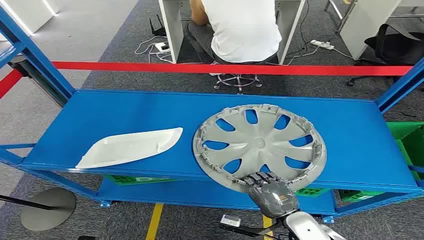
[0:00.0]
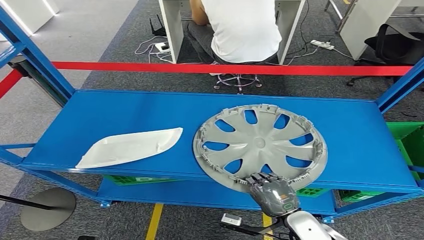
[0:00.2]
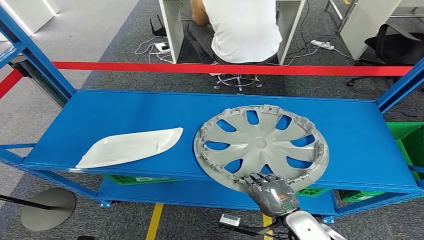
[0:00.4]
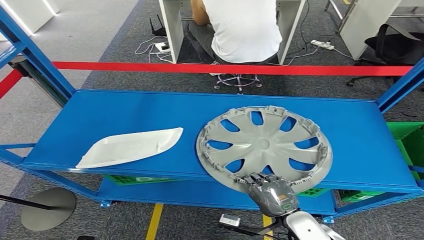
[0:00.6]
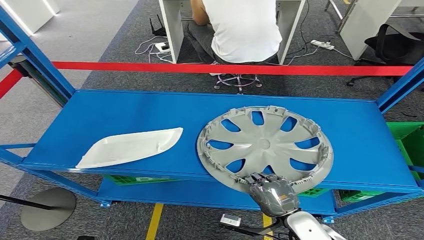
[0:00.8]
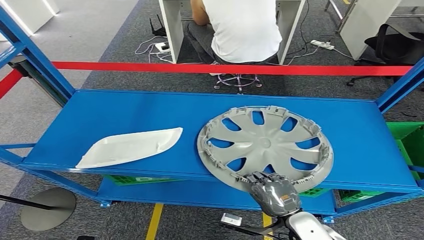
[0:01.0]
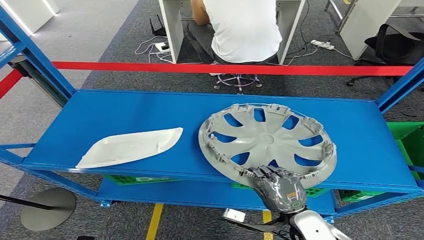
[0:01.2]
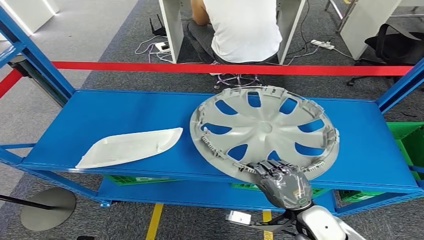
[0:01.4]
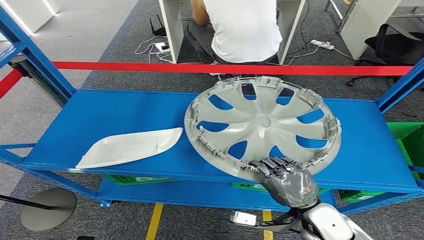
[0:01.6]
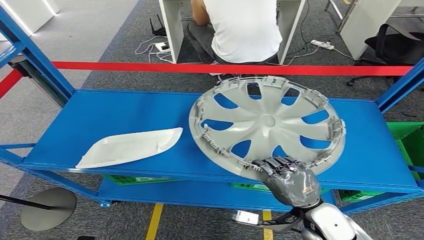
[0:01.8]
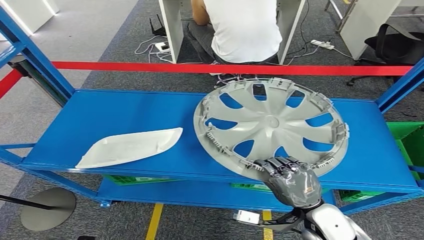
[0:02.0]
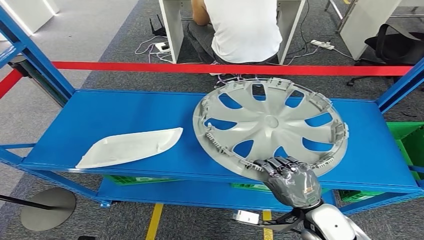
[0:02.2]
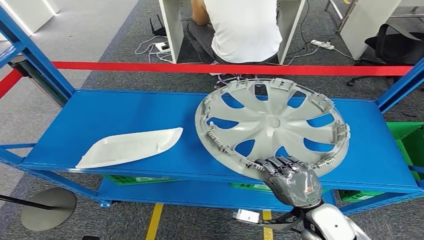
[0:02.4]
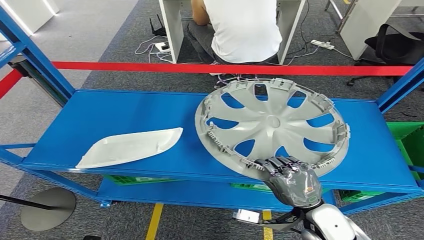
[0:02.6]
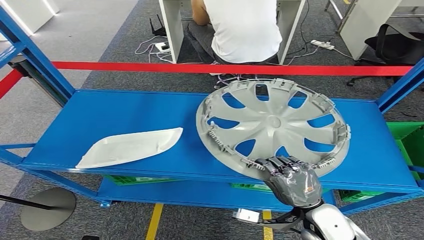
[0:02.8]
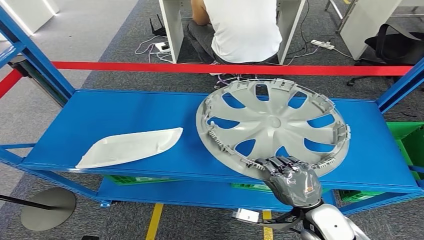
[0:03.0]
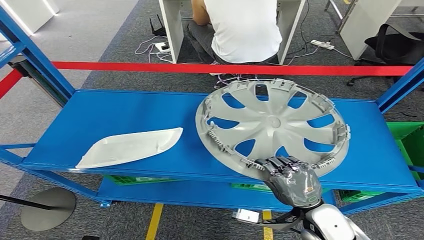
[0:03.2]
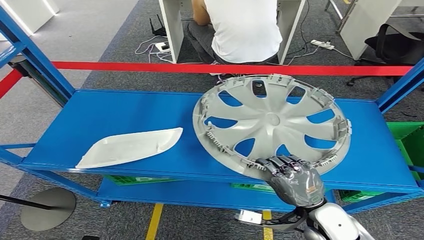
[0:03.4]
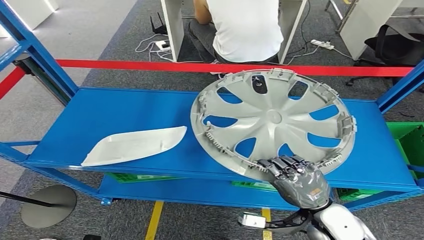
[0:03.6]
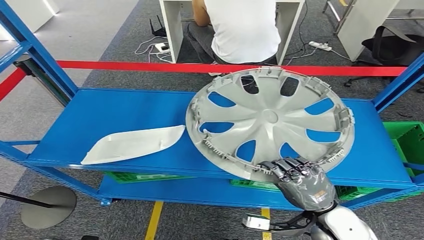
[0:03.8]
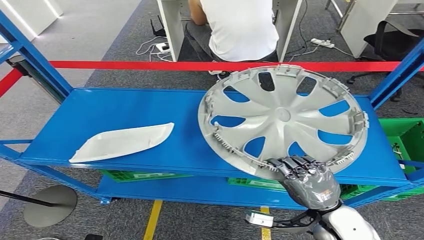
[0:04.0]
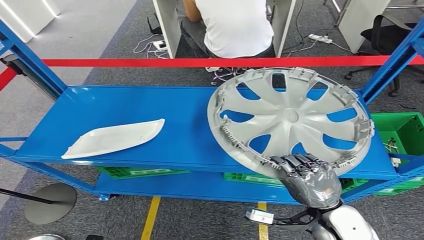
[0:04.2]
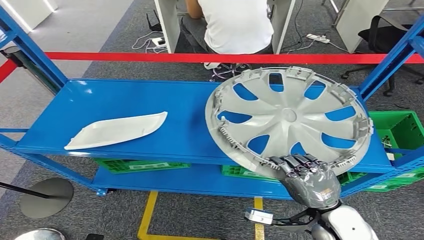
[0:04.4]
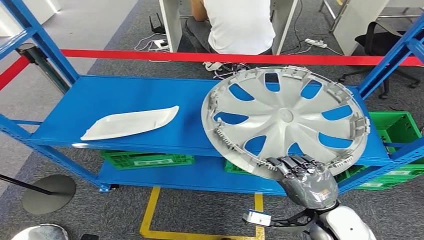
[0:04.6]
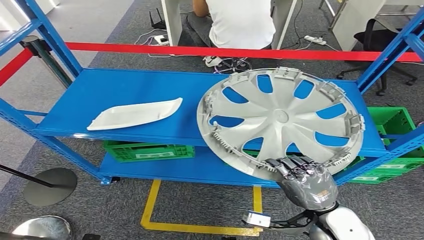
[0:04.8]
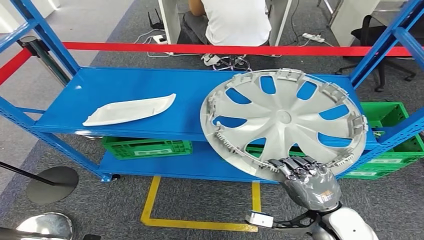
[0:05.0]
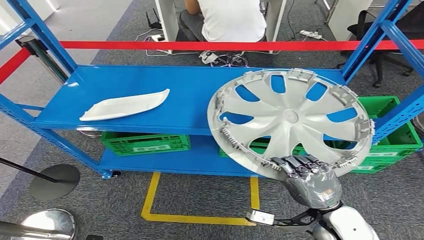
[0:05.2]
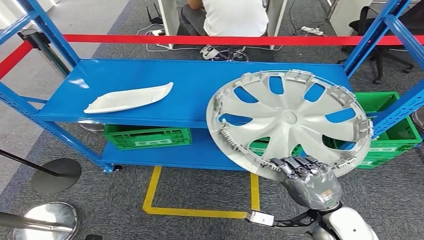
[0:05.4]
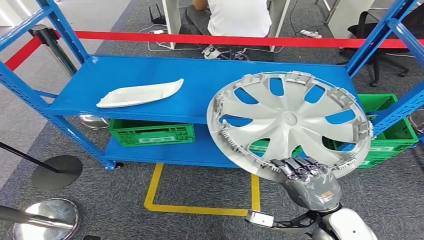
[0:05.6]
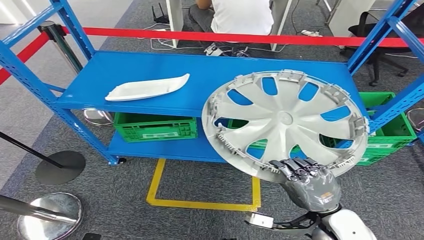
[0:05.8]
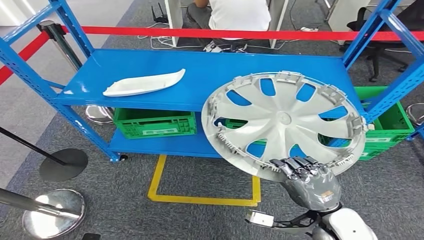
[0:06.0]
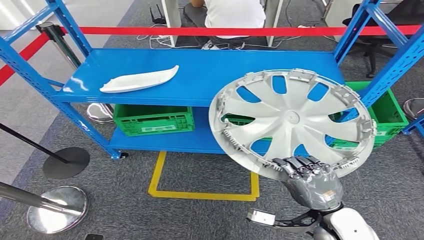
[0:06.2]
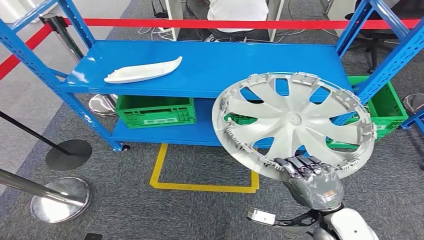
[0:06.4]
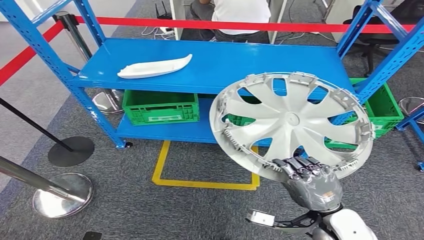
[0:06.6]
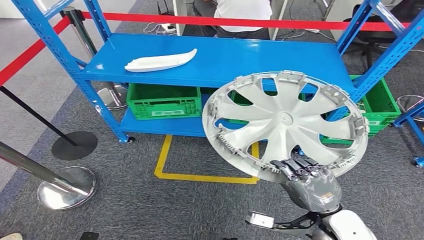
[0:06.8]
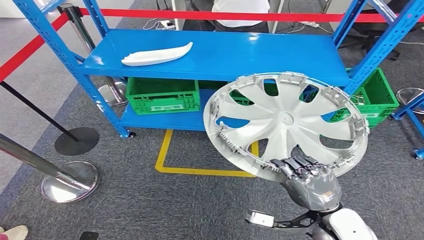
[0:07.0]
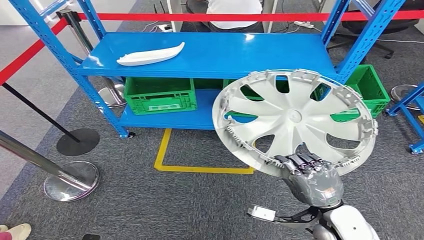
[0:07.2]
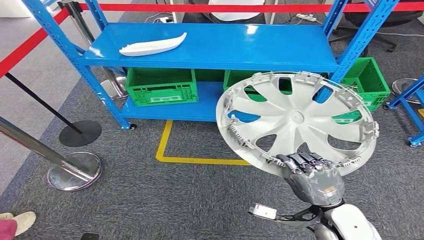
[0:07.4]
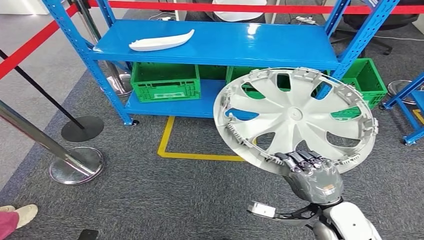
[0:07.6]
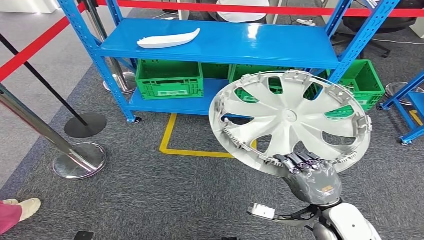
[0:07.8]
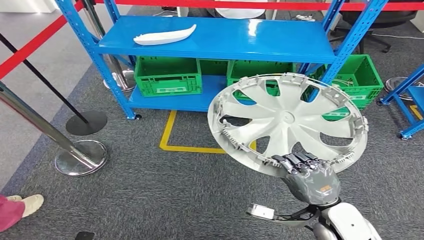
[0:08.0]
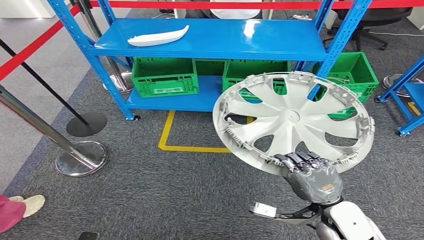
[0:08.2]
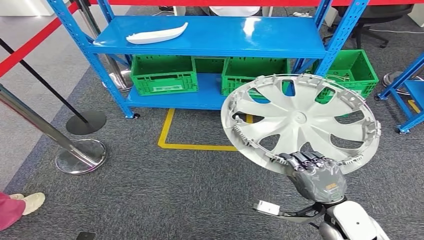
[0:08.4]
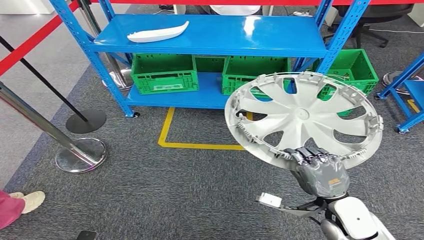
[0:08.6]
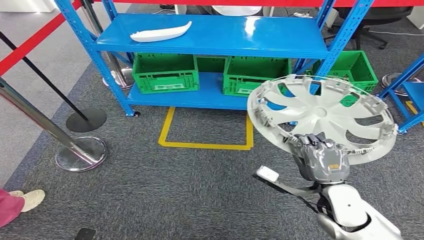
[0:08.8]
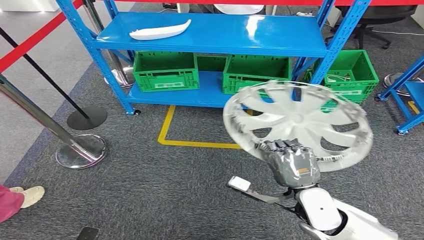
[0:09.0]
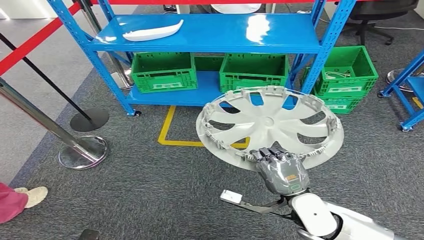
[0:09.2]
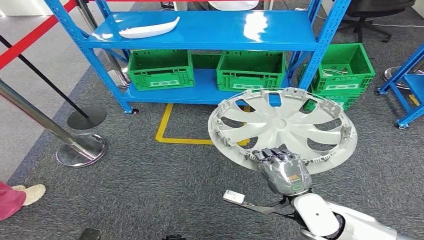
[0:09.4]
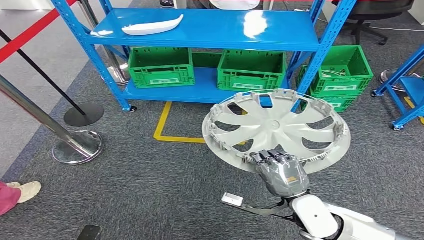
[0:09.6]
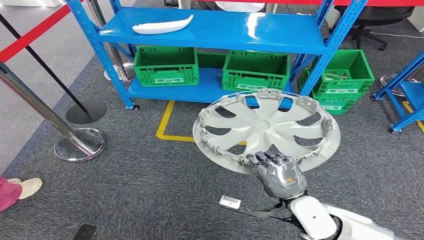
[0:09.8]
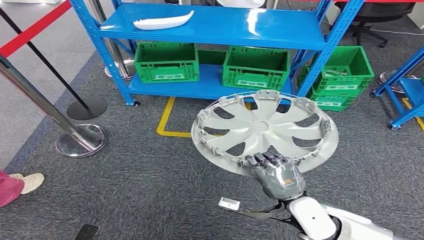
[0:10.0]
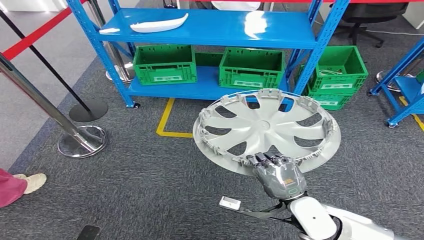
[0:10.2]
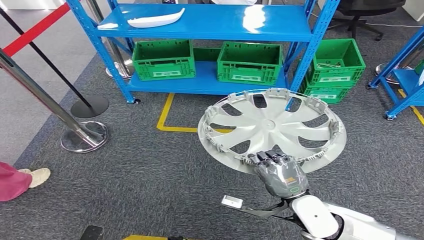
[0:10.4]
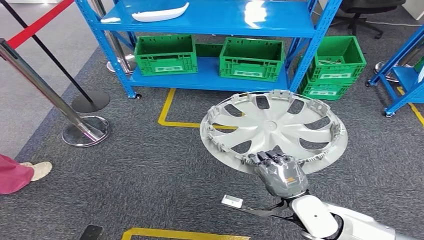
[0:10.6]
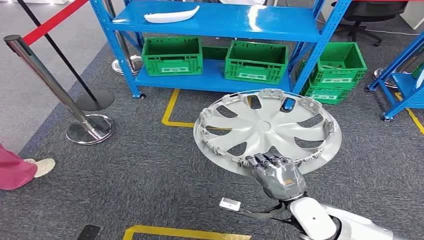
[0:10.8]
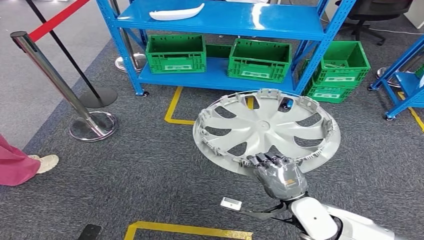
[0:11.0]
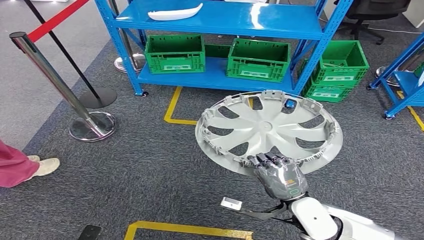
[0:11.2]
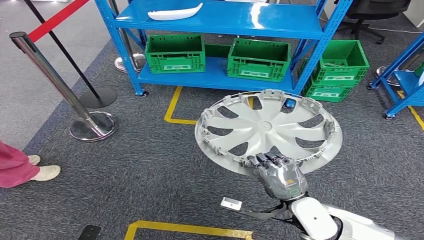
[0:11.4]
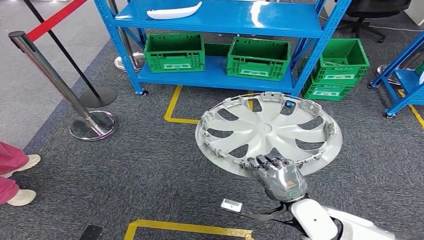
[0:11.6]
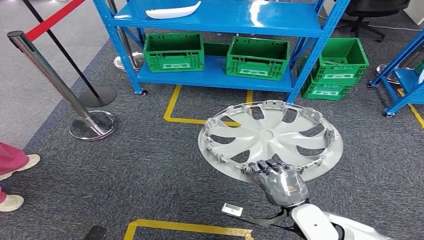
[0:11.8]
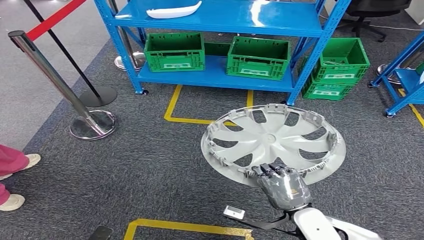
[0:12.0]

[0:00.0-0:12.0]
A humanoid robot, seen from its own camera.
Step, 0:00.0 to 0:04.0: Pick up the small component from the shelf.
0:01.6 to 0:03.0: The hands make only small movements.

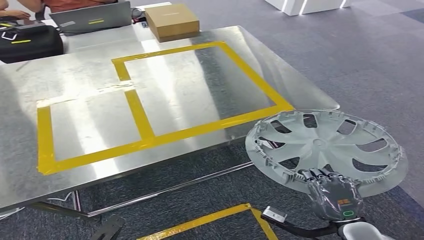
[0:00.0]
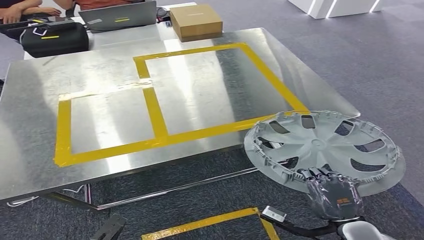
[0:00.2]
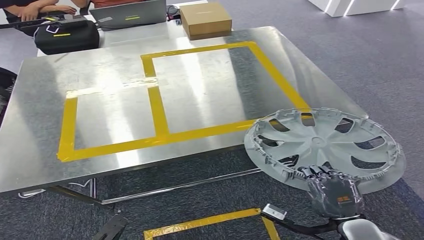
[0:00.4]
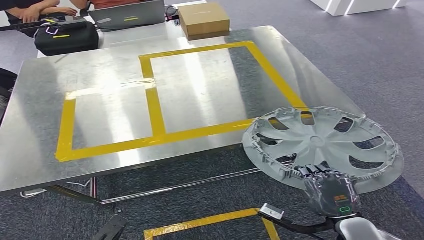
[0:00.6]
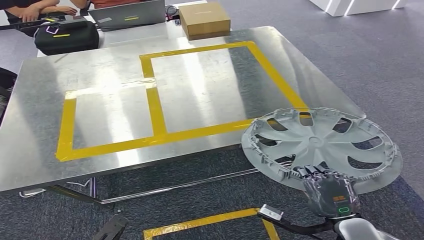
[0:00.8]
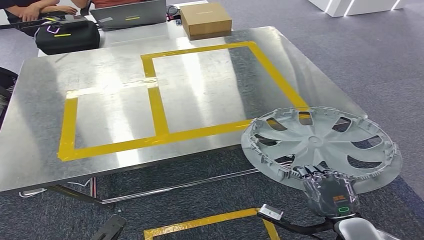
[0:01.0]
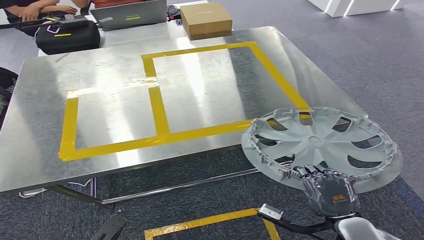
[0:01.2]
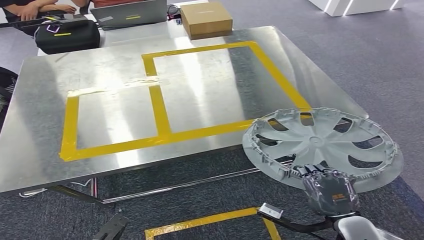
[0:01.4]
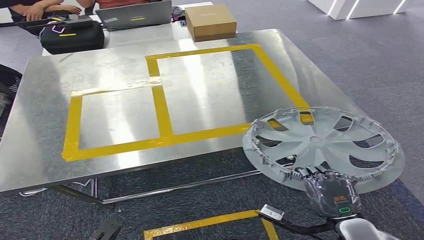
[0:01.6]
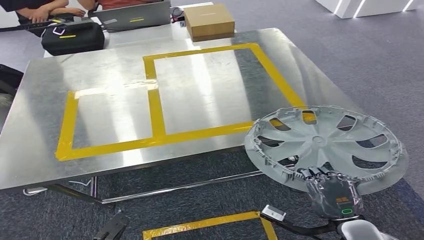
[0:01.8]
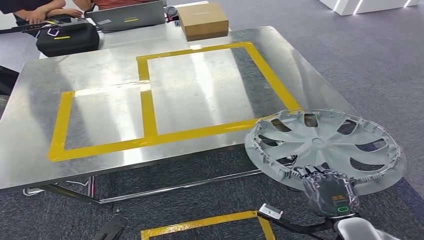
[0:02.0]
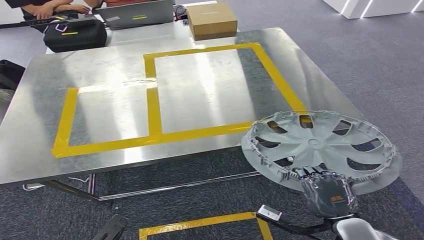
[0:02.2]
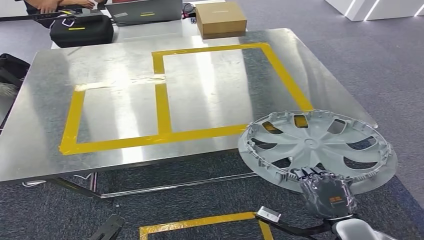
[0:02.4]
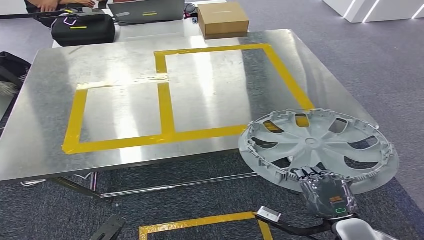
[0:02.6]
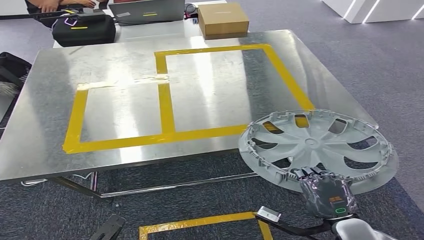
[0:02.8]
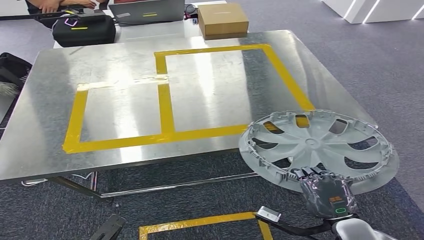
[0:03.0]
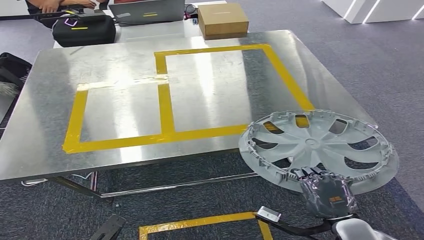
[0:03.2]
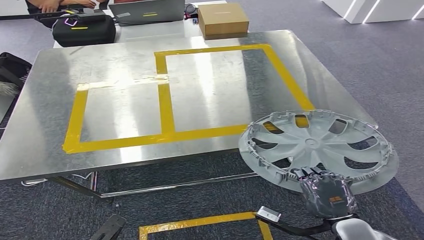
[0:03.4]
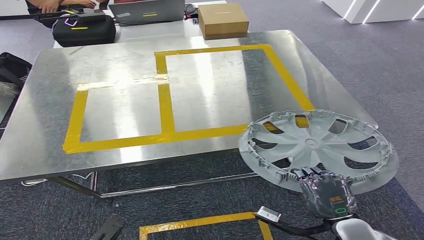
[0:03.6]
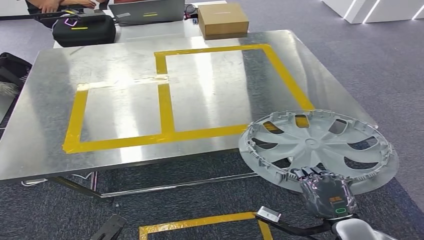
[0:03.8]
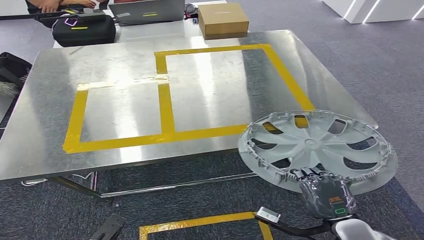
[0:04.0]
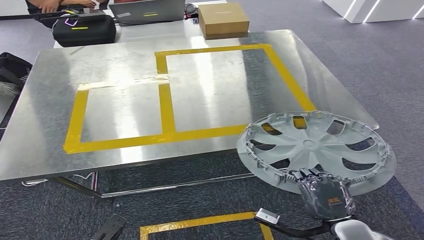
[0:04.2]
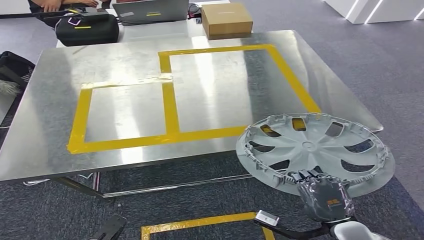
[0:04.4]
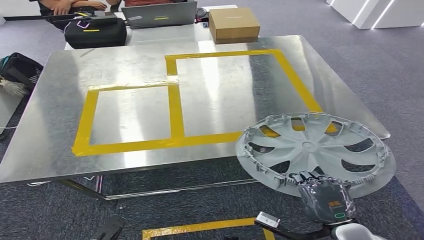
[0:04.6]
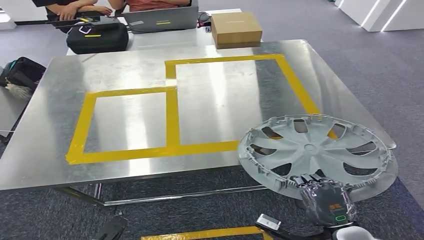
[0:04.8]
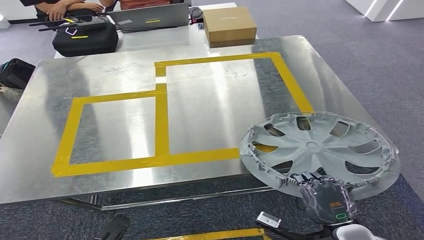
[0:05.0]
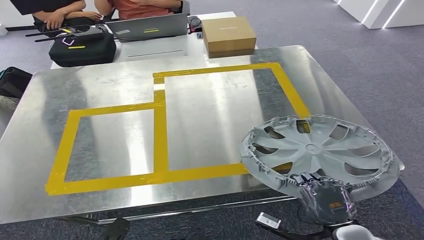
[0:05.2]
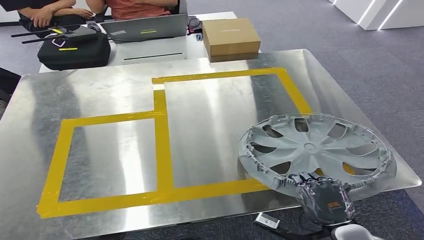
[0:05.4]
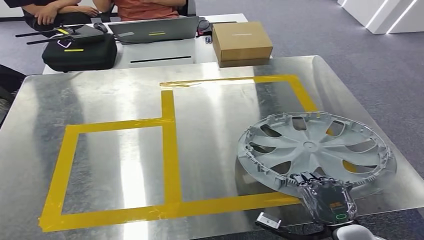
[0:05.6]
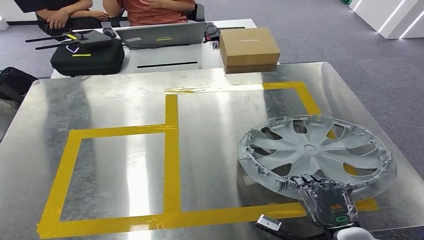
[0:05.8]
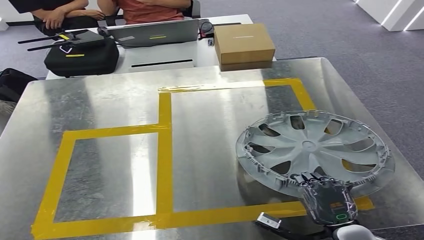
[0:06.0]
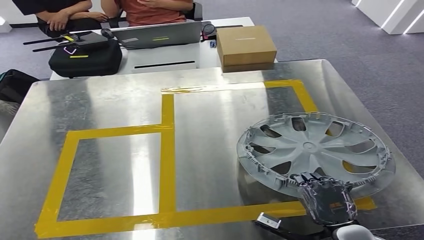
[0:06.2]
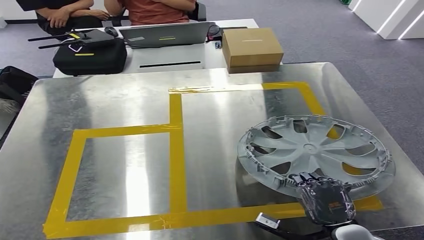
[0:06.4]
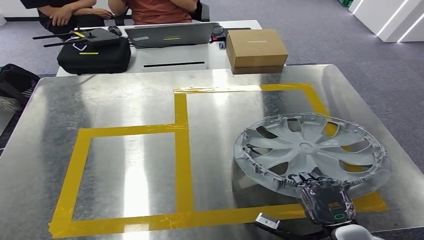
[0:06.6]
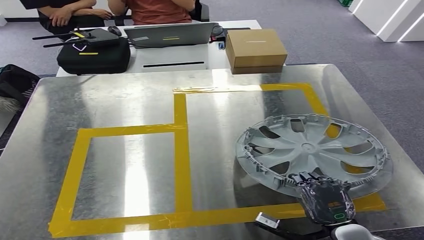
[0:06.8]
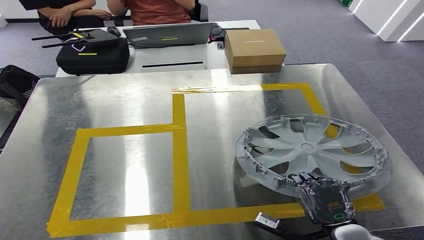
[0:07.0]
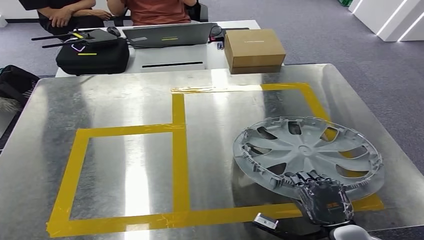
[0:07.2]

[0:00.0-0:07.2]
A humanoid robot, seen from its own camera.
0:02.8 to 0:04.4: The two hands keep their place.
0:05.8 to 0:07.2: The hands move only a little.
